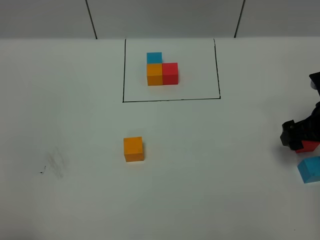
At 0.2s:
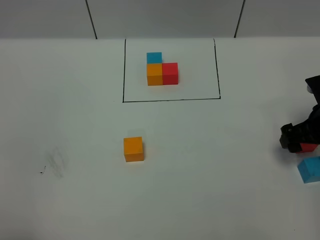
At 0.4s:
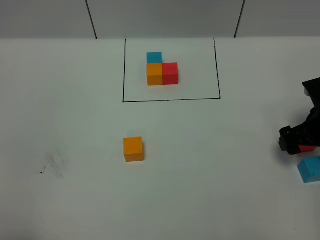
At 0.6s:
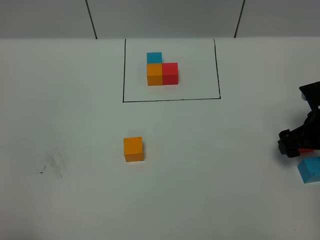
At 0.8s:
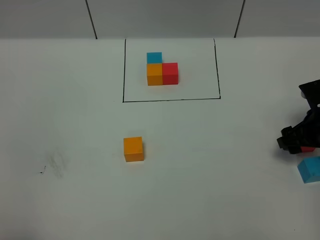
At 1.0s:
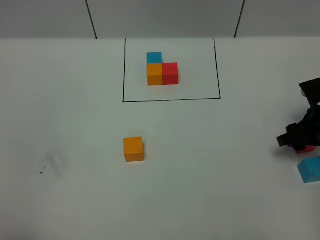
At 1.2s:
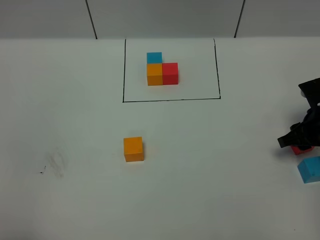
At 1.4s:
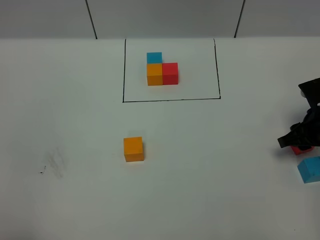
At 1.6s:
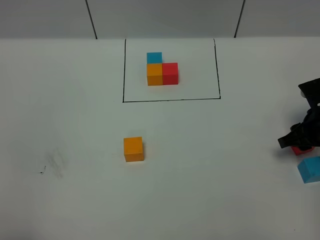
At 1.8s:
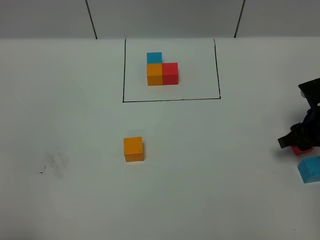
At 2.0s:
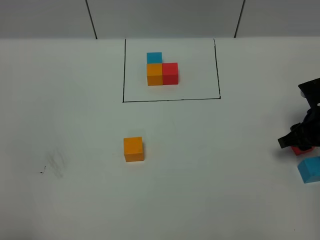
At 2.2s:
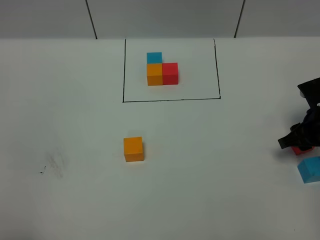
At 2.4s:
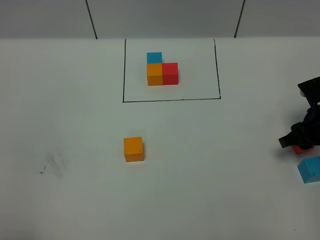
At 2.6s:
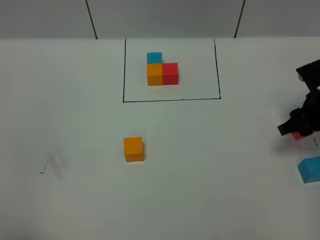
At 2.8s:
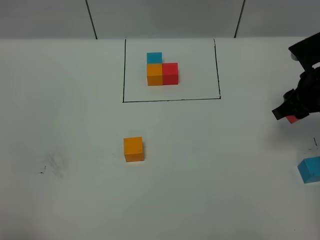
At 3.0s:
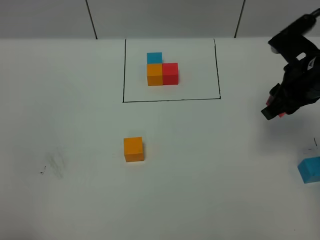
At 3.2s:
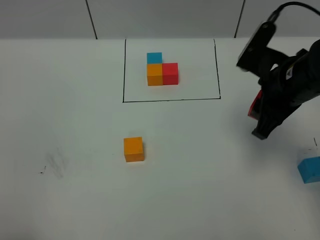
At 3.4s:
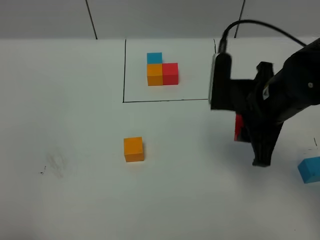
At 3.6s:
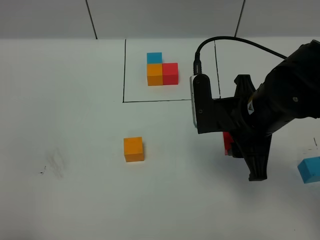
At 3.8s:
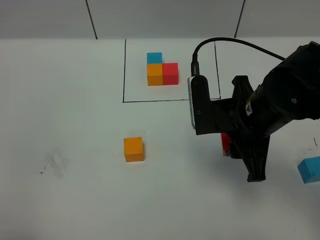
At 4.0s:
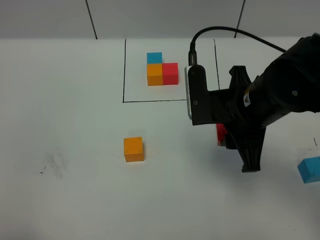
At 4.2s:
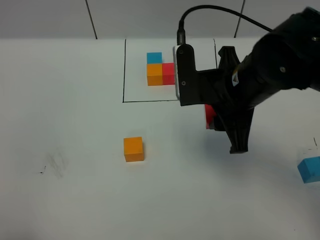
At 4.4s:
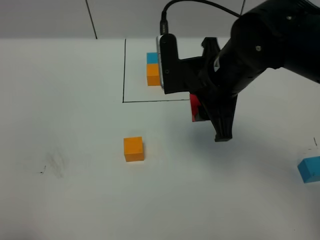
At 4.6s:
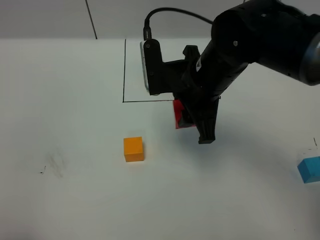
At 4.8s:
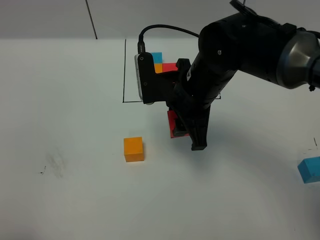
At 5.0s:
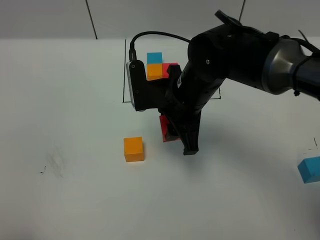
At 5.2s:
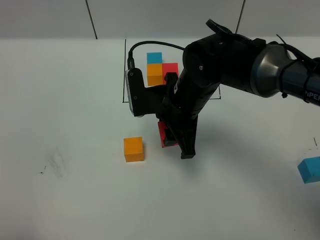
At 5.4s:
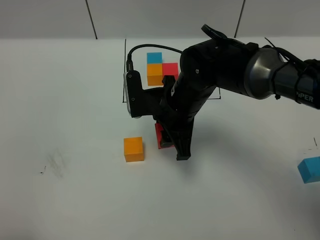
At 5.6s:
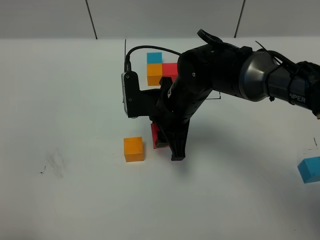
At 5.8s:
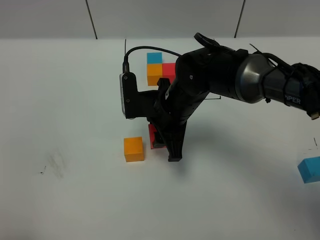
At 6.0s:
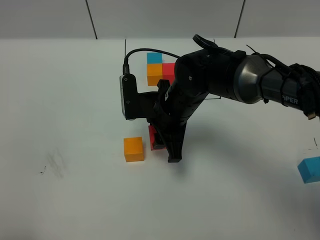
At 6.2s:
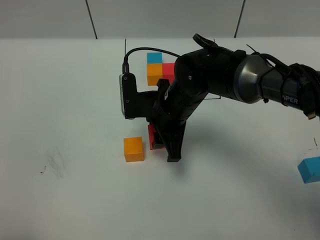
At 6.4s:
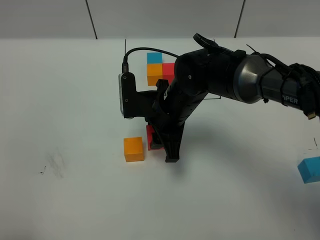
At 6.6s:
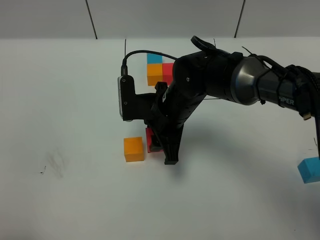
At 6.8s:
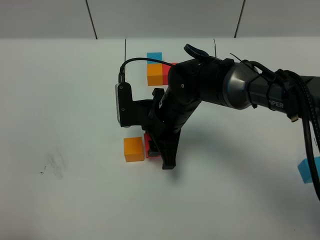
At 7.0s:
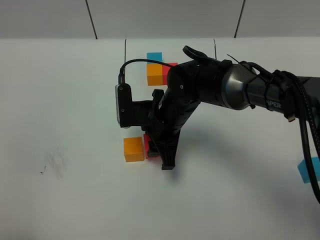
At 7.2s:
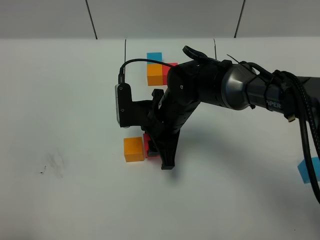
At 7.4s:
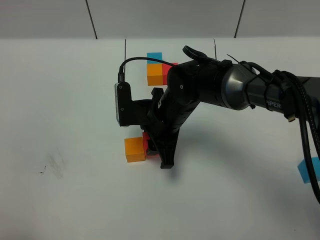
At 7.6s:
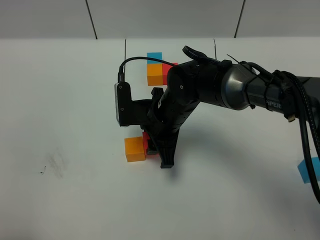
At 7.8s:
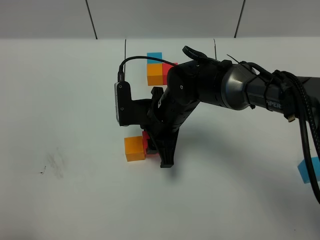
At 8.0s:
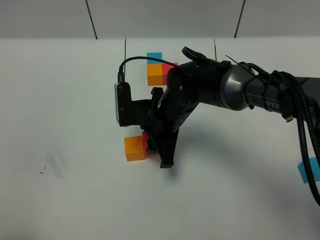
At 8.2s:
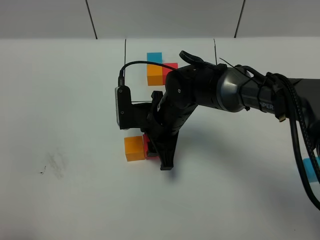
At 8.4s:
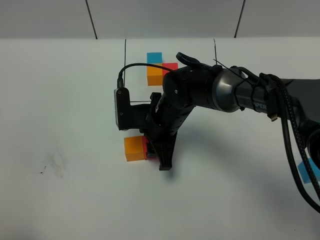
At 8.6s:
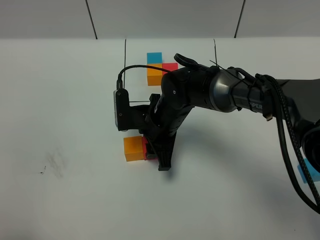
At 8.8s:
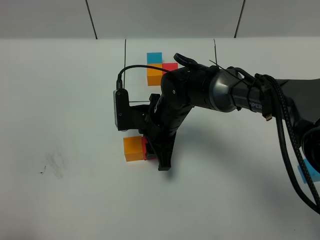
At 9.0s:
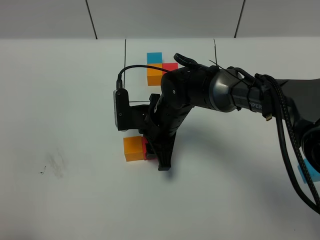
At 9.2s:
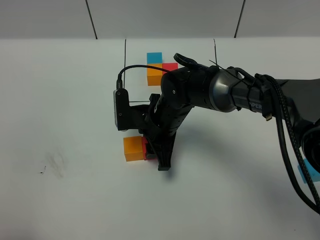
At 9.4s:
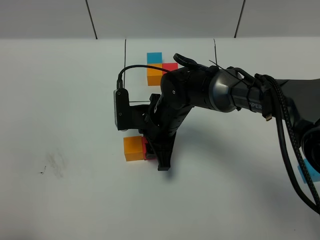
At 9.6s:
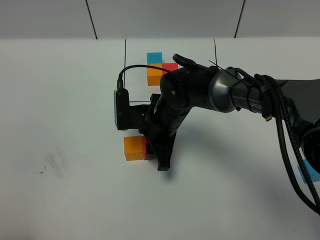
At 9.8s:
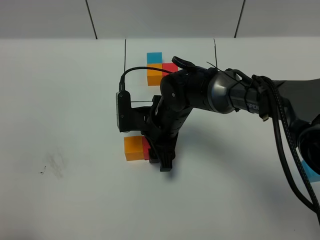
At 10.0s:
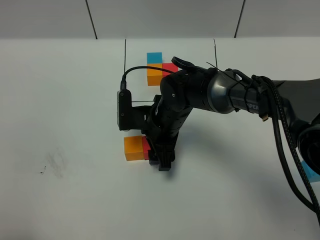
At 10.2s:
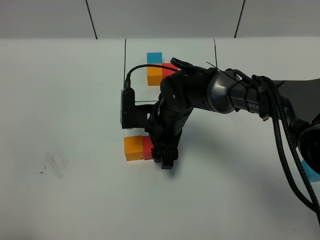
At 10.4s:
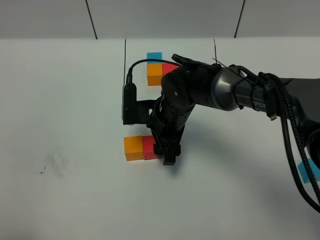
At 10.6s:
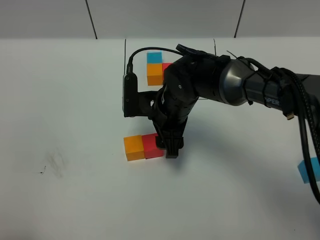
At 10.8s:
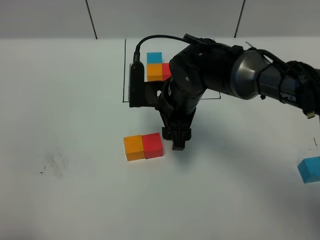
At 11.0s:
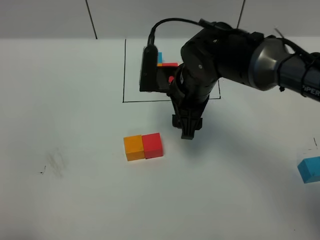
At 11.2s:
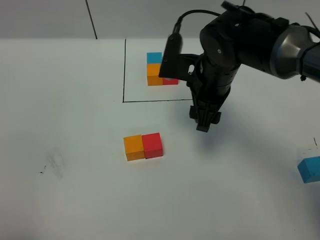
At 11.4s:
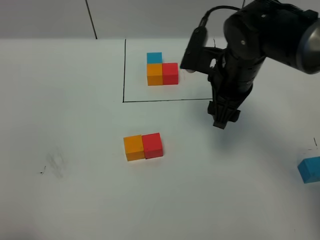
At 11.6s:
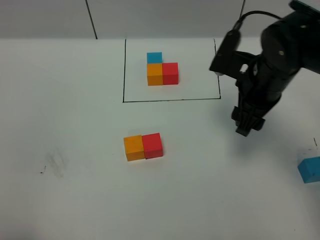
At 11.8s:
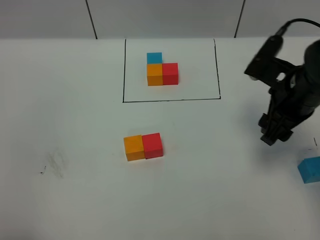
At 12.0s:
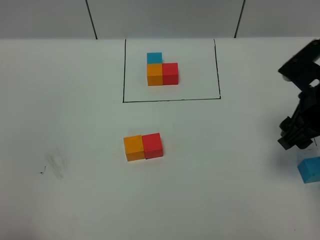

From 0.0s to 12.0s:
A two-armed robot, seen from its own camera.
Task of the whole recording: According to the building block template in front, assemble the scattered blocks together.
Step, from 0.0s to 10.8s: Put the red cube on the right of the orange cube.
From 0.0s to 1.6s: The right gripper closes its fingers.
From 1.6s to 3.0s: The right gripper is displaced upward and to the left by roughly 15 cm.
From 3.0s to 4.4s: The right gripper goes about 15 cm to the left.
From 4.4s to 6.0s: The right gripper travels downward and to the left by approximately 10 cm.
From 6.0s to 10.4s: The grippers move only a little.
From 10.4s to 12.0s: The right gripper heads to the right and upward, covering some 25 cm.

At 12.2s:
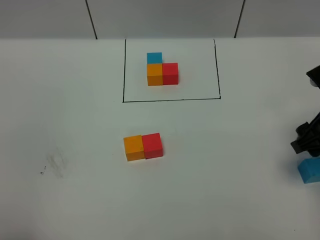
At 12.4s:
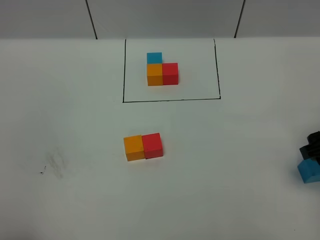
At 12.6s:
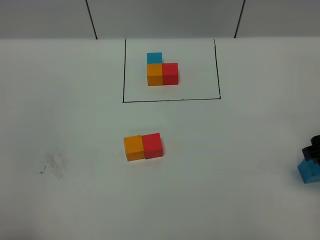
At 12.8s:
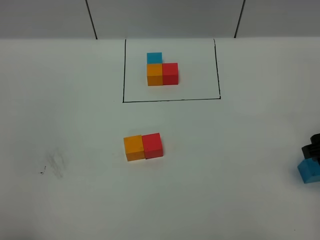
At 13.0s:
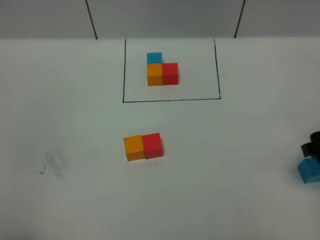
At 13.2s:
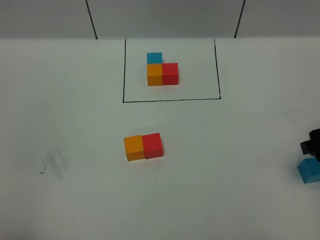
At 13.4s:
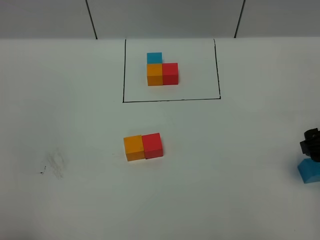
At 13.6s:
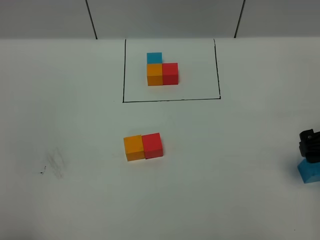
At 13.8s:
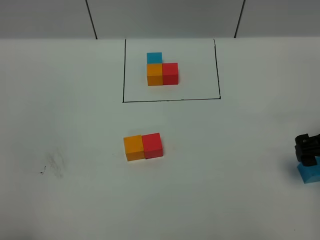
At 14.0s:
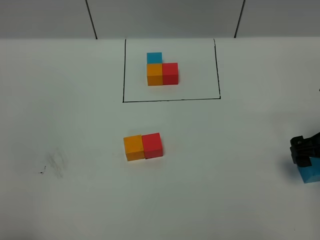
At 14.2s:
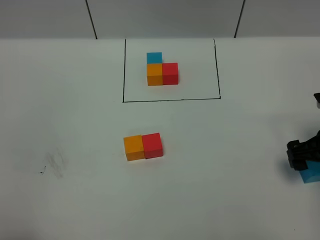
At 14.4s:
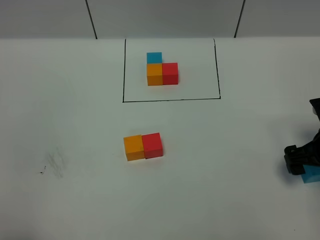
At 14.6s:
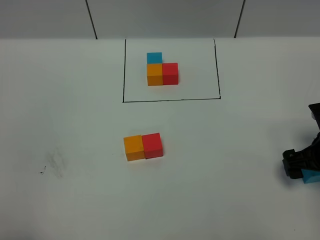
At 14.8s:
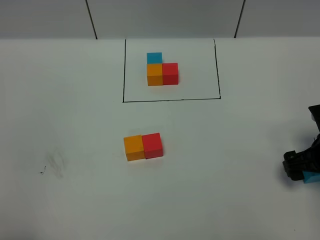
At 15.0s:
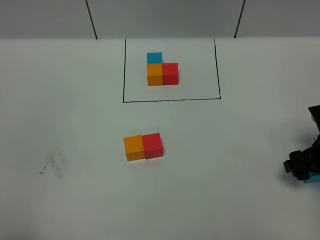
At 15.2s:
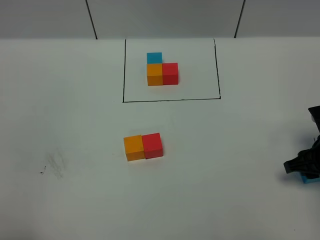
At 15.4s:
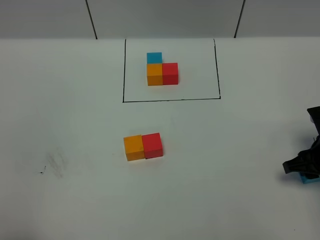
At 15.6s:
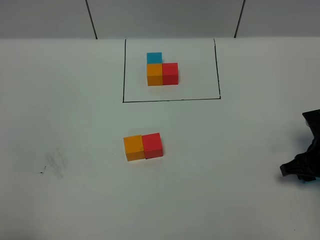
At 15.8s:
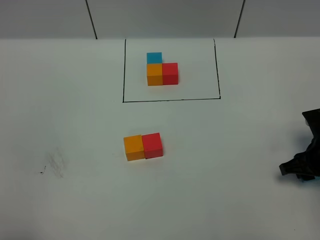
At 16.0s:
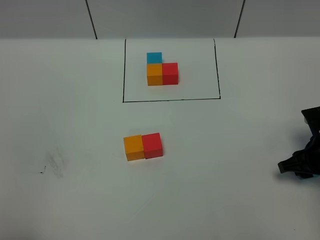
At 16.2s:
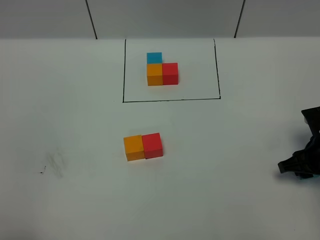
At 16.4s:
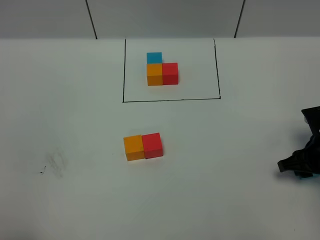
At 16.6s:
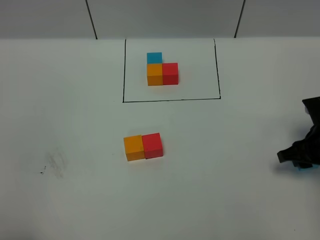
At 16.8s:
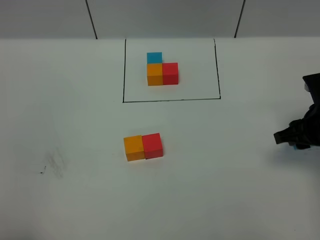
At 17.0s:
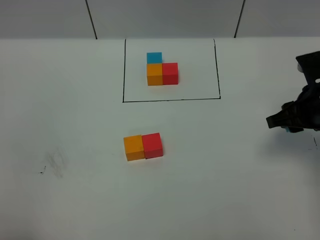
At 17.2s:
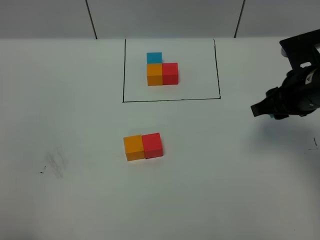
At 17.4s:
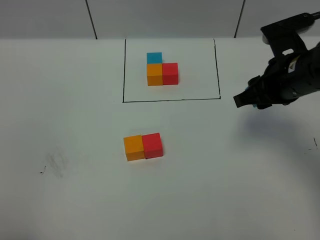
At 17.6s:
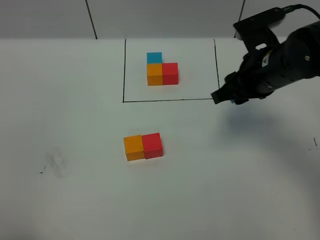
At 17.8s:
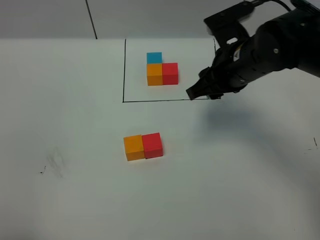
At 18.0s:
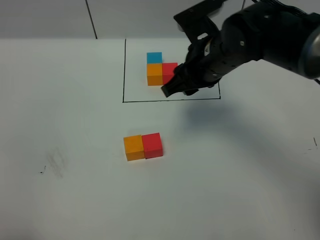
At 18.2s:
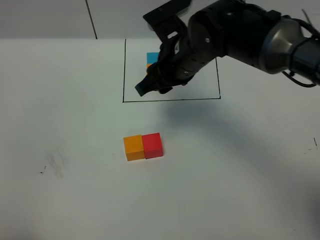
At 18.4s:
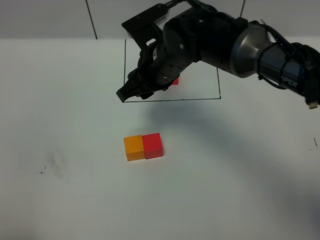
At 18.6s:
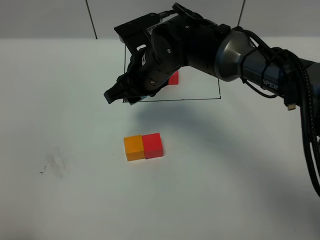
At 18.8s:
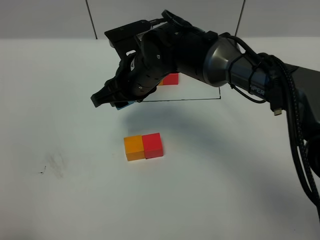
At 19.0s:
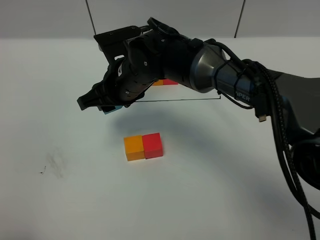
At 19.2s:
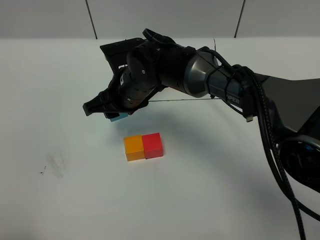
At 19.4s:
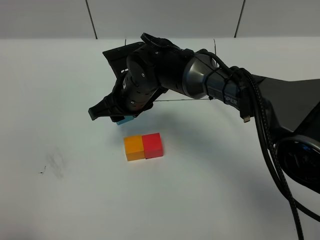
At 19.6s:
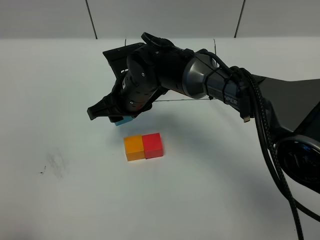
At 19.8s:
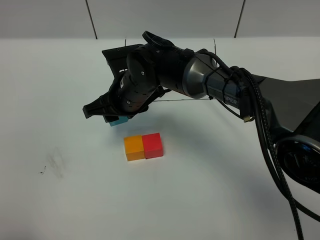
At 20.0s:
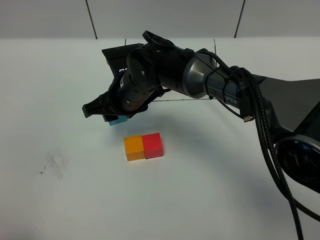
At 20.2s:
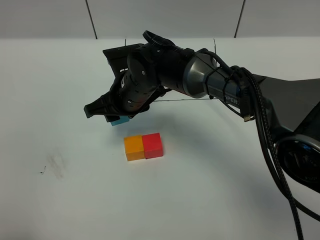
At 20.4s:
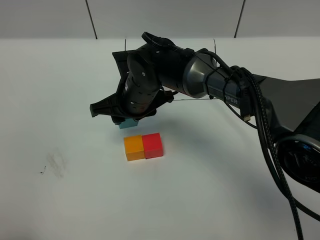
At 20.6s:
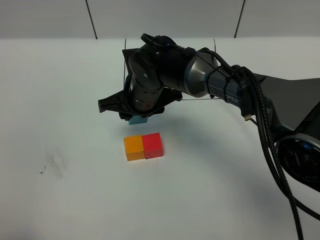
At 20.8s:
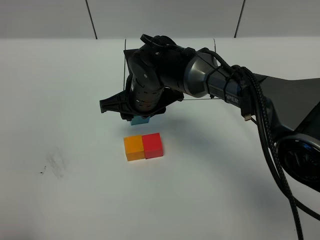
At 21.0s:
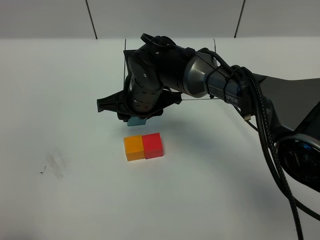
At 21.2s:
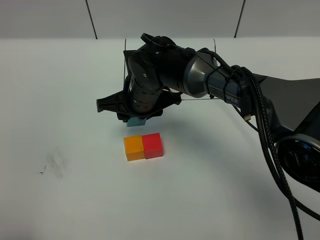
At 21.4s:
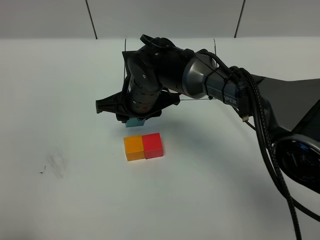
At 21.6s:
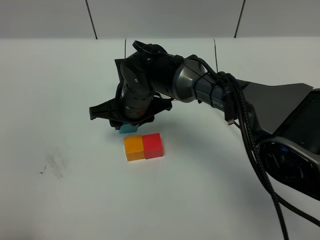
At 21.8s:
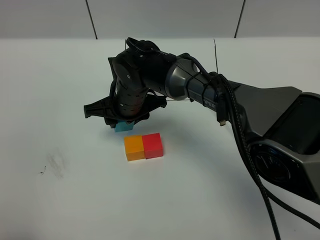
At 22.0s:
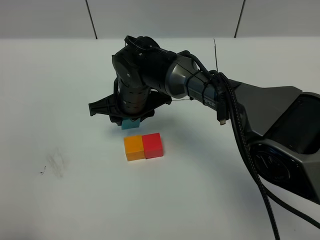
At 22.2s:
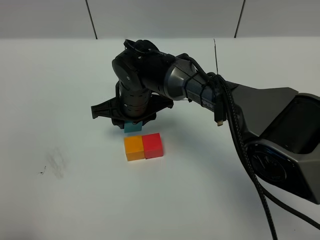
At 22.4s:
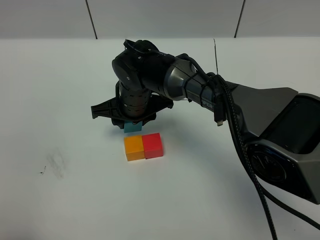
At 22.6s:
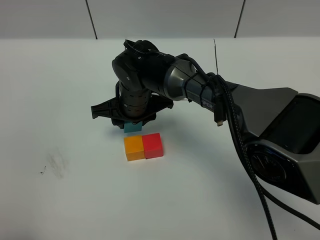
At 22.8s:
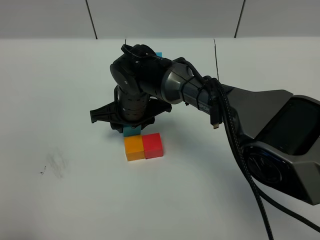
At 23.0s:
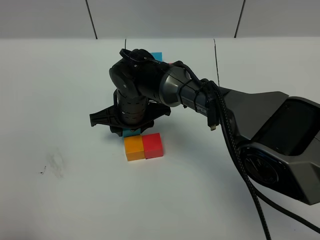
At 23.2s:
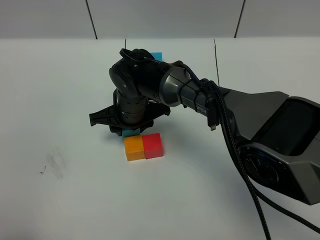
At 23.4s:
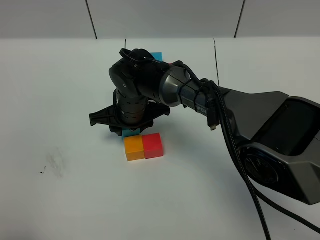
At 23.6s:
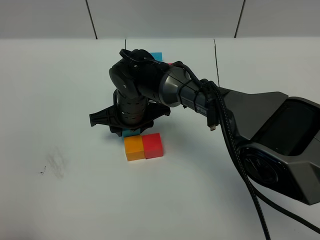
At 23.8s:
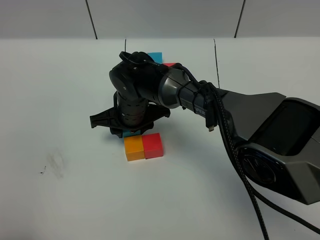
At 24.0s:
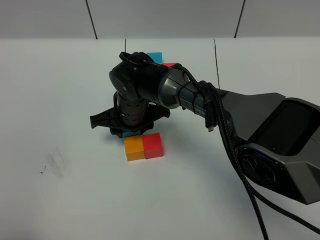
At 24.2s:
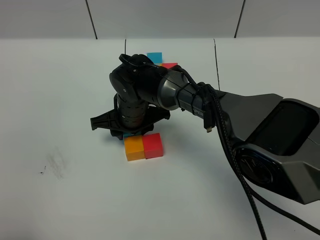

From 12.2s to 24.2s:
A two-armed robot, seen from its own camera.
Task of the whole recording: According to the building block template in front, assemble the scattered blocks together.
From 12.2s to 13.8s: The grippers stay close to where they were, moving slightly.
From 13.8s to 15.2s: The right gripper heads downward, covering some 5 cm, and closes.
From 15.2s to 16.6s: The grippers stay close to where they were, moving slightly.
From 16.6s to 18.2s: The right gripper shifts about 30 cm to the left and upward.
From 18.2s to 19.8s: The right gripper moves to the left and downward, about 10 cm.
From 19.8s to 21.2s: The grippers make only small movements.
From 21.2s to 24.2s: The grippers move only a little.
